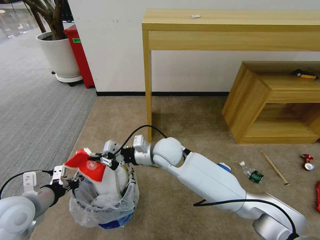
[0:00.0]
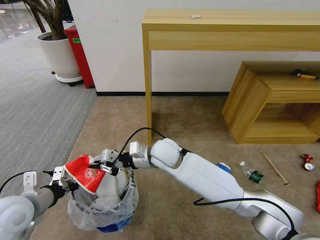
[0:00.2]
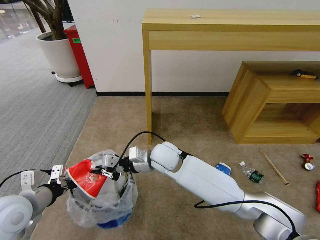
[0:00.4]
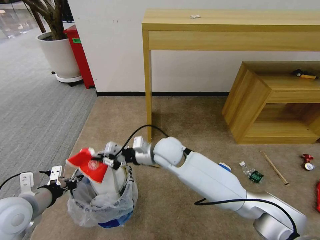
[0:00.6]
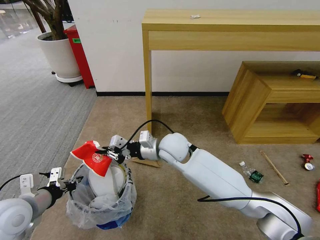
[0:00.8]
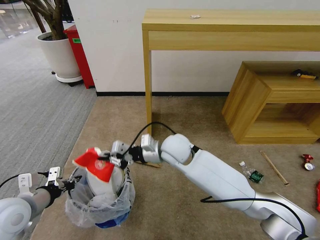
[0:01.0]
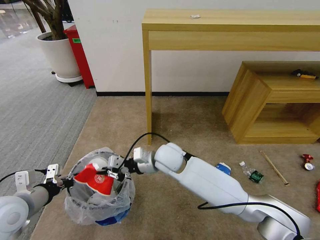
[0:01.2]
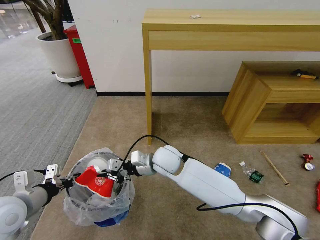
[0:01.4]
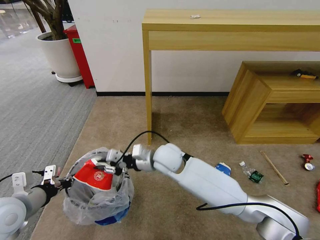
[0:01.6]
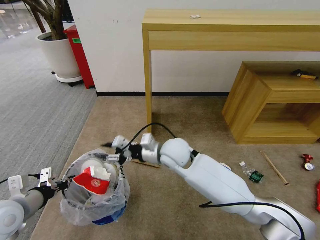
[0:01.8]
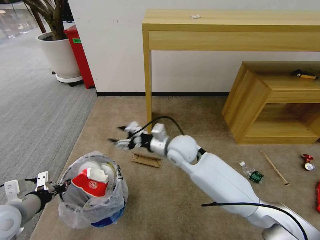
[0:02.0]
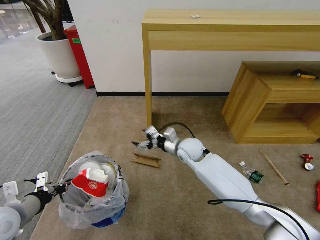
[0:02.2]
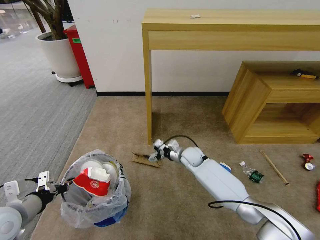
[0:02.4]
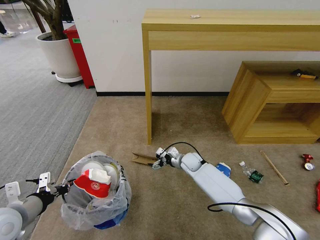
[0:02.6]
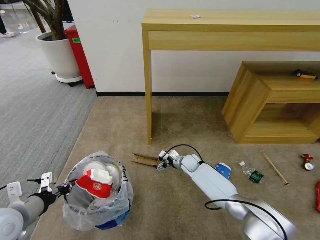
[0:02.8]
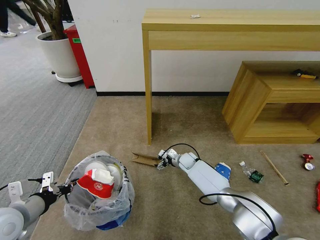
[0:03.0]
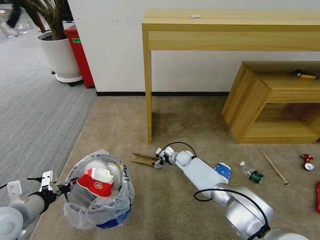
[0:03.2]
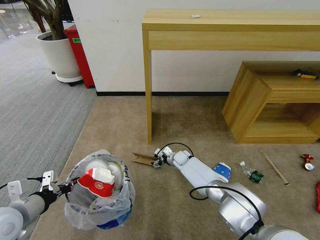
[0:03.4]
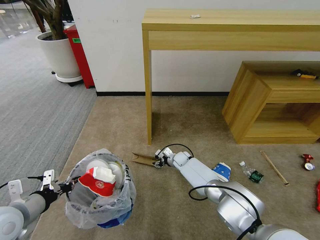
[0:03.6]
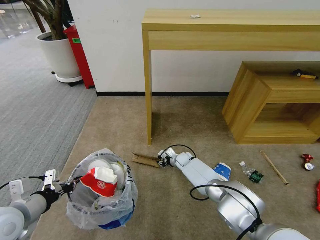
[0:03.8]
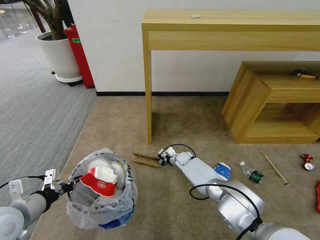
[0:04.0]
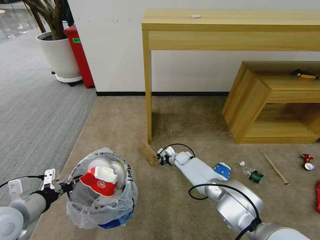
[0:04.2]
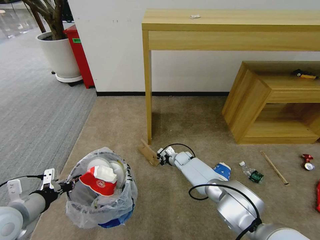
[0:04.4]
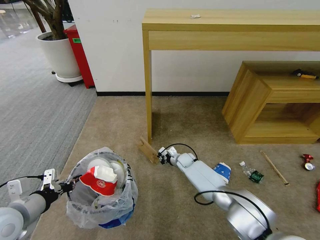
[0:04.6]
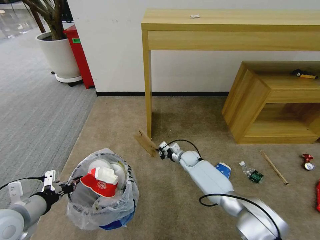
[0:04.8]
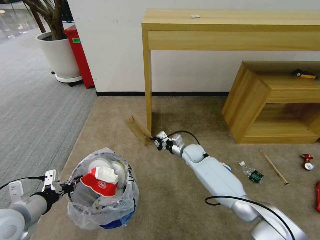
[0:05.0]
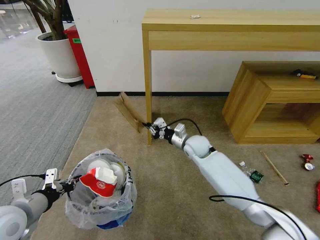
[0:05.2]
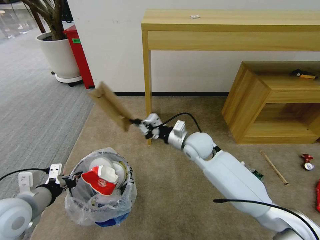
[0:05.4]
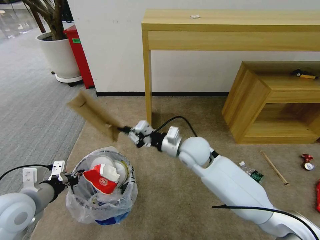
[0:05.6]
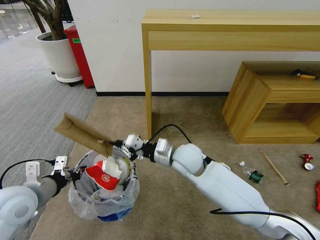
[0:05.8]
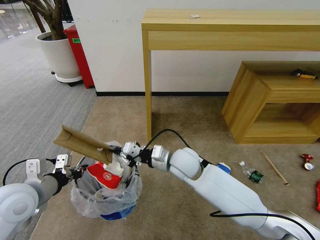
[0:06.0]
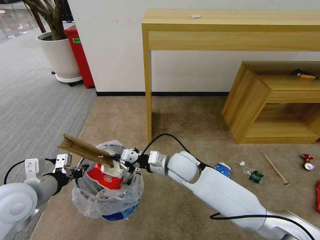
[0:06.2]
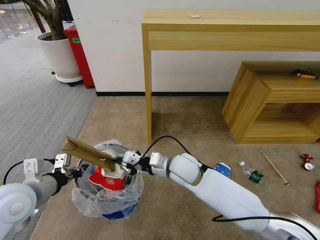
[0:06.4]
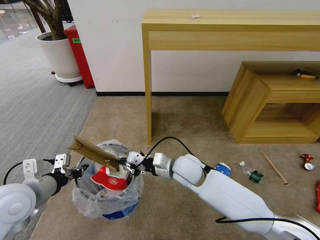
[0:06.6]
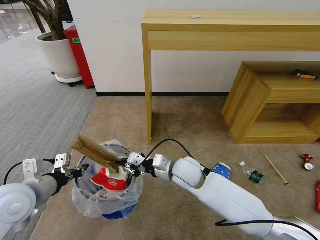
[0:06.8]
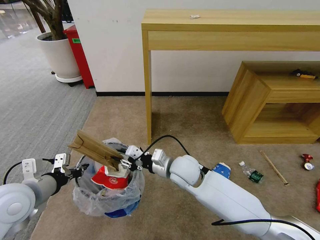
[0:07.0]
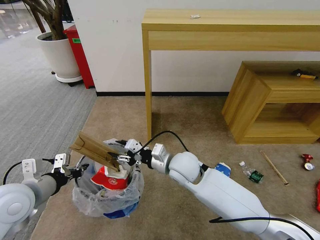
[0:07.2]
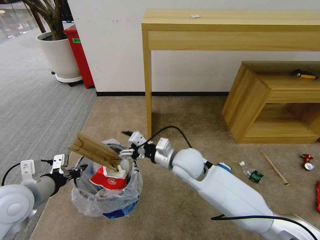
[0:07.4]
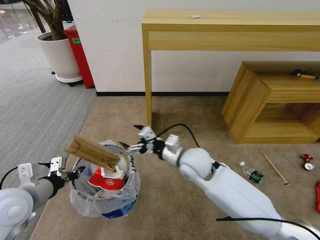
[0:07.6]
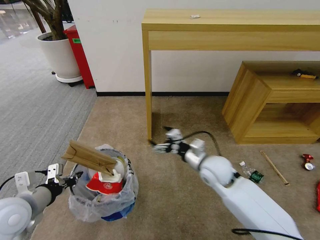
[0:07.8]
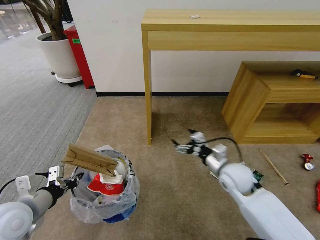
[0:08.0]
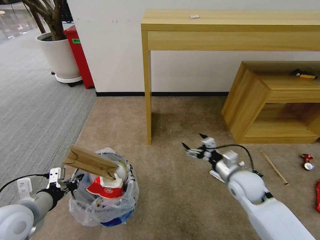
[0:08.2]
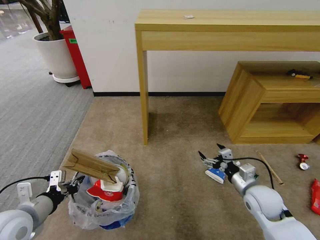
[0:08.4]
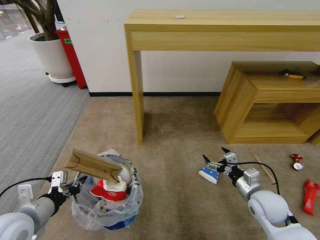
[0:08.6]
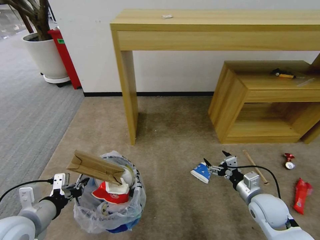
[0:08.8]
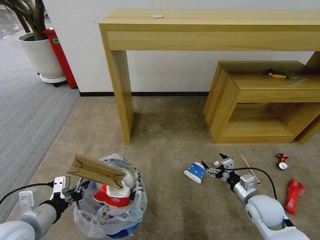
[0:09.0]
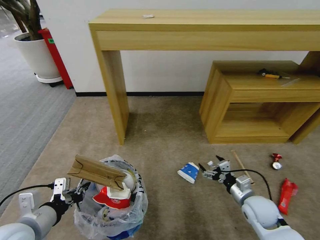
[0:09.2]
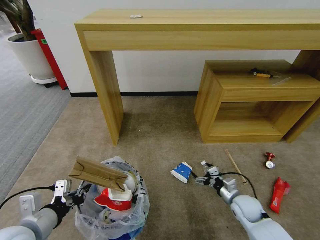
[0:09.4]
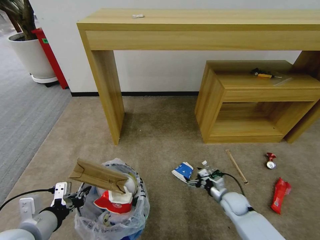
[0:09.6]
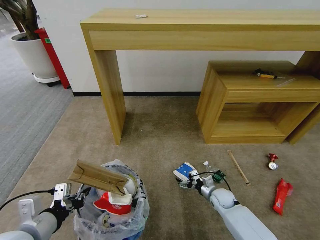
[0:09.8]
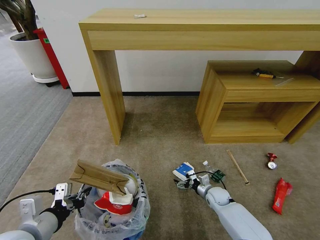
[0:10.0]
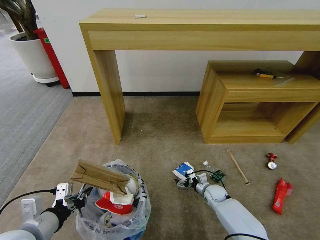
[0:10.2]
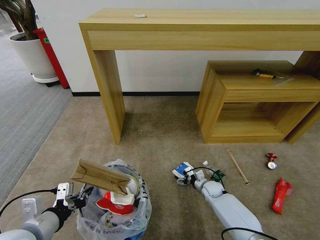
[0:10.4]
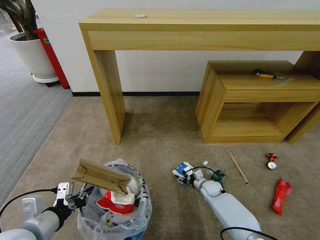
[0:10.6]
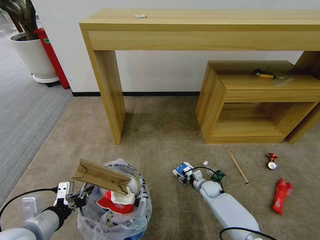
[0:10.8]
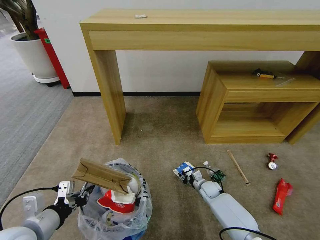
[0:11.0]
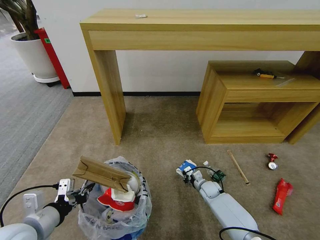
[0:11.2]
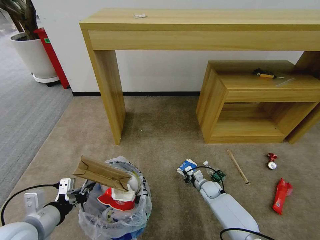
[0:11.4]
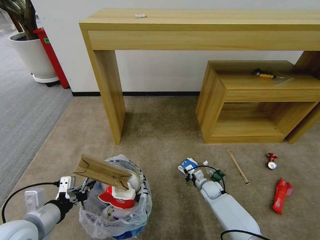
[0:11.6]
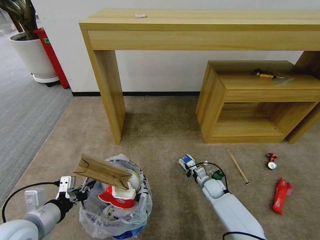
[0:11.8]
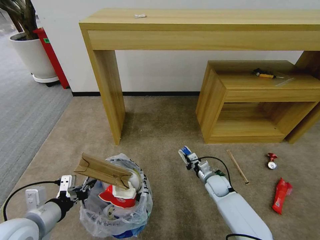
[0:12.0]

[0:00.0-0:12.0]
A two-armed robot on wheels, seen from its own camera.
Task of the whole recording: Pick up the trash bin and place the garbage on the floor into it.
0:00.0 to 0:01.6: There are only small adjustments of the grippers.
0:01.6 to 0:03.0: The right gripper travels downward, forward and to the right by roughly 30 cm, and opens up.
0:03.0 to 0:04.4: The right gripper closes its fingers.
0:04.4 to 0:06.0: The right gripper shifts about 30 cm upward and backward, while the left gripper ends up roughly 5 cm from where it was.
0:06.0 to 0:07.6: The right gripper opens its fingers.
0:07.6 to 0:09.0: The right gripper moves to the right, downward and backward, about 30 cm. The left gripper goes some 5 cm backward.
0:09.0 to 0:10.4: The right gripper shifts about 25 cm downward, forward and to the left.
0:10.4 to 0:12.0: The right gripper moves upward, some 10 cm, and closes.

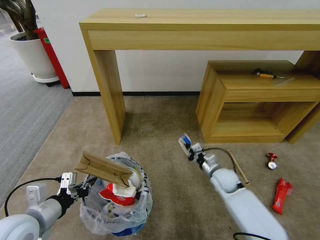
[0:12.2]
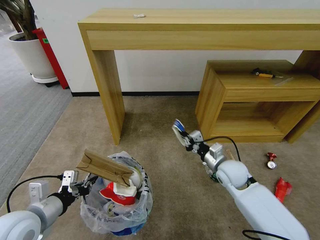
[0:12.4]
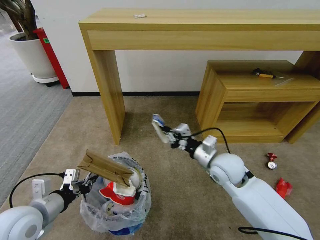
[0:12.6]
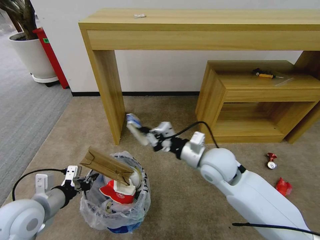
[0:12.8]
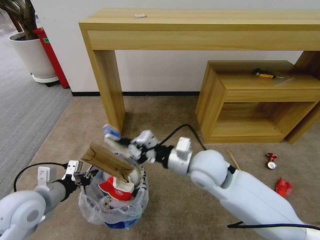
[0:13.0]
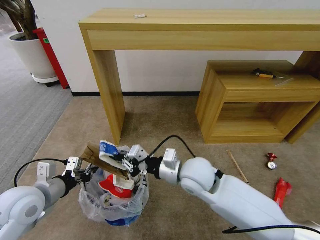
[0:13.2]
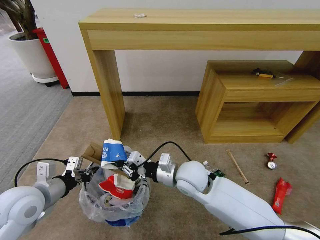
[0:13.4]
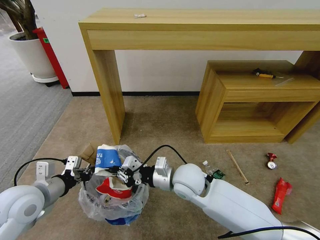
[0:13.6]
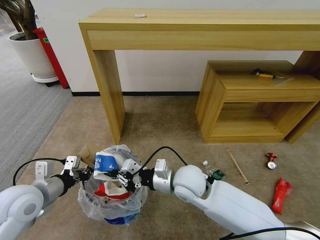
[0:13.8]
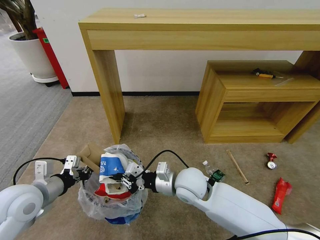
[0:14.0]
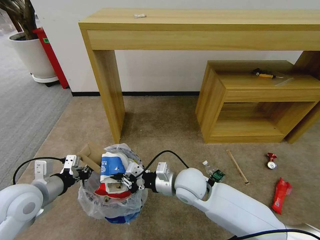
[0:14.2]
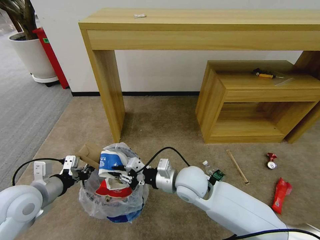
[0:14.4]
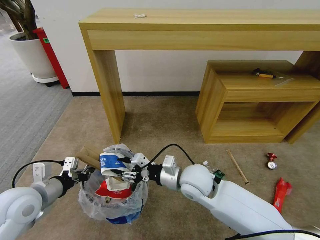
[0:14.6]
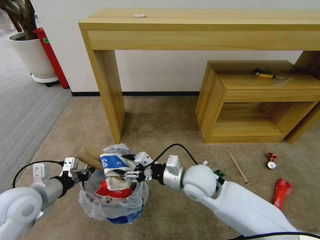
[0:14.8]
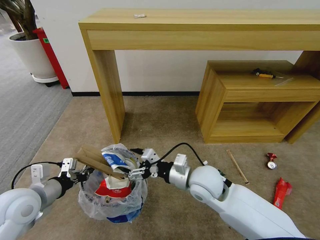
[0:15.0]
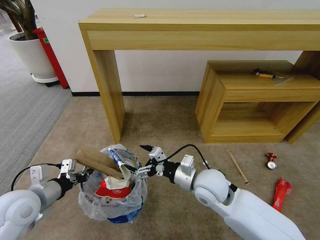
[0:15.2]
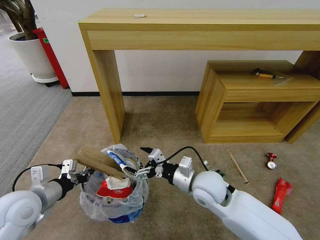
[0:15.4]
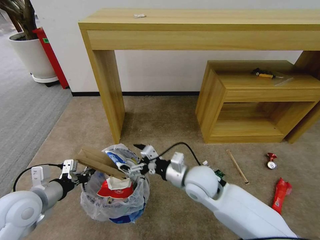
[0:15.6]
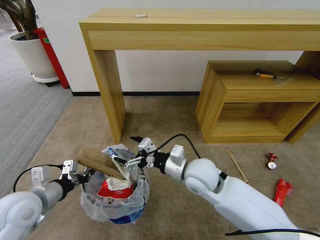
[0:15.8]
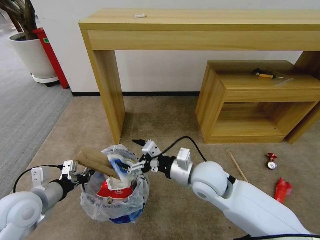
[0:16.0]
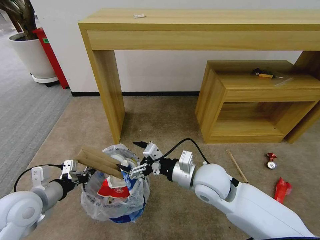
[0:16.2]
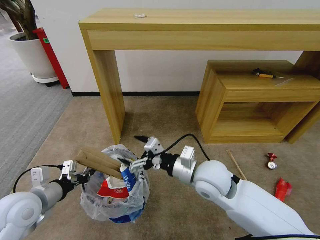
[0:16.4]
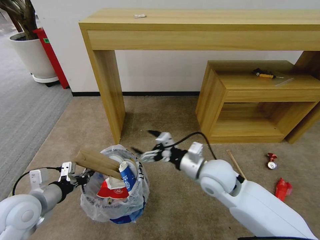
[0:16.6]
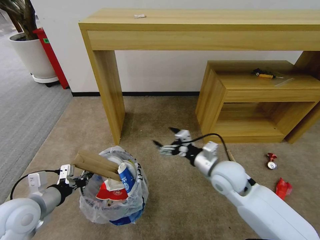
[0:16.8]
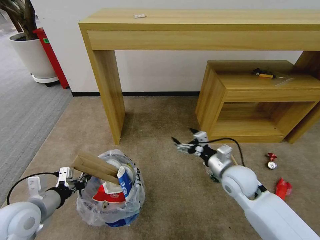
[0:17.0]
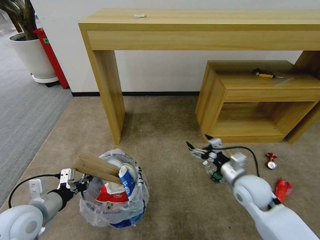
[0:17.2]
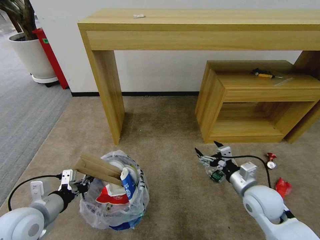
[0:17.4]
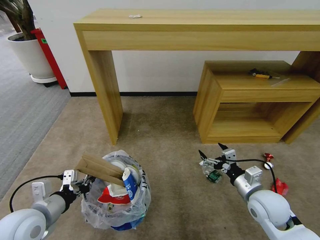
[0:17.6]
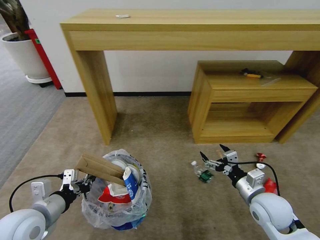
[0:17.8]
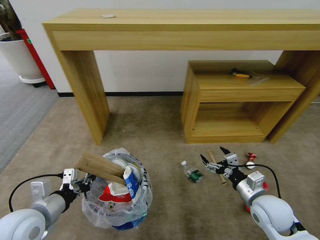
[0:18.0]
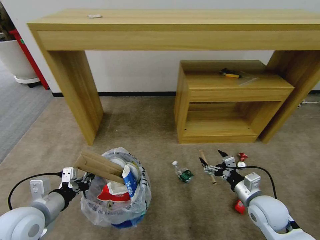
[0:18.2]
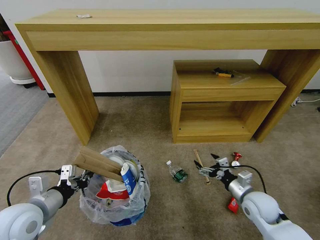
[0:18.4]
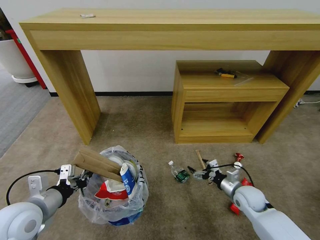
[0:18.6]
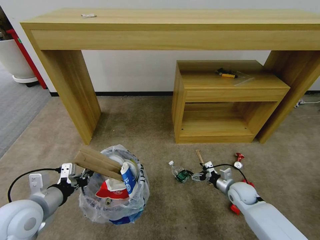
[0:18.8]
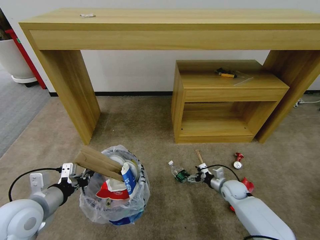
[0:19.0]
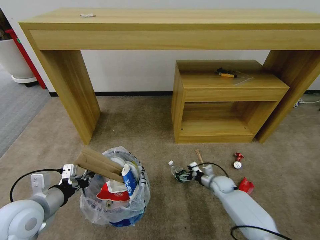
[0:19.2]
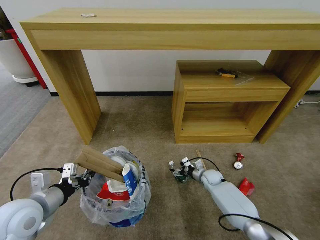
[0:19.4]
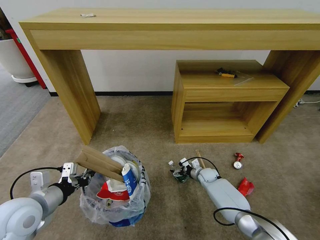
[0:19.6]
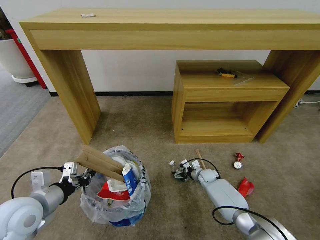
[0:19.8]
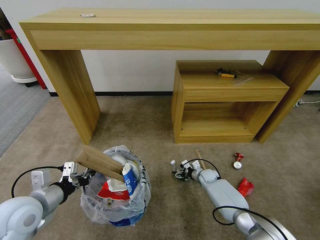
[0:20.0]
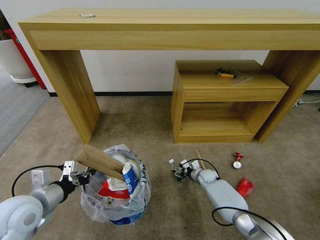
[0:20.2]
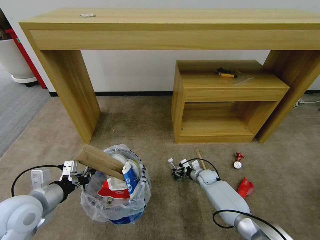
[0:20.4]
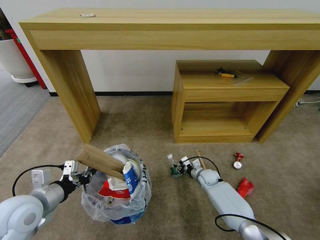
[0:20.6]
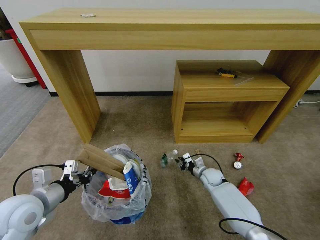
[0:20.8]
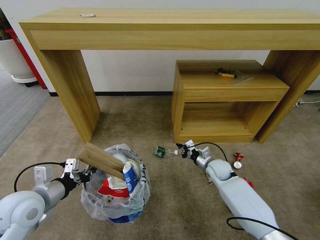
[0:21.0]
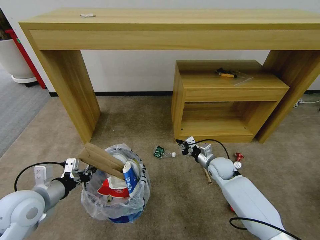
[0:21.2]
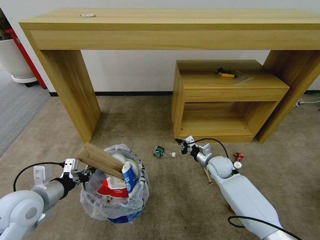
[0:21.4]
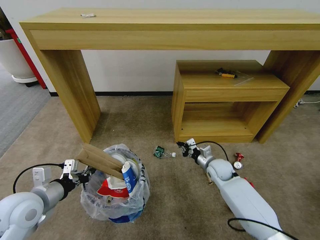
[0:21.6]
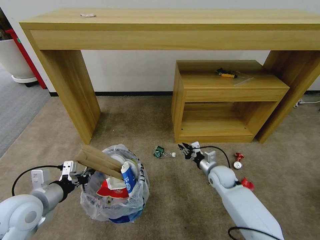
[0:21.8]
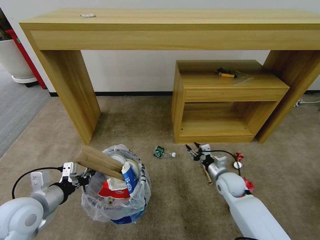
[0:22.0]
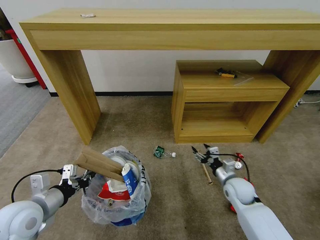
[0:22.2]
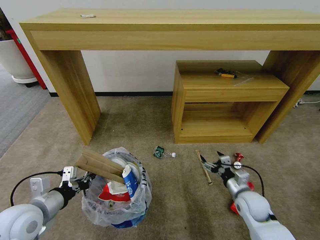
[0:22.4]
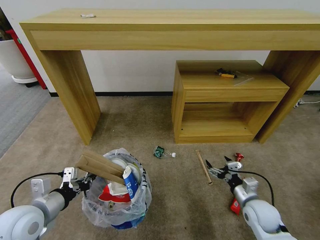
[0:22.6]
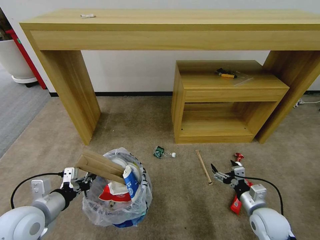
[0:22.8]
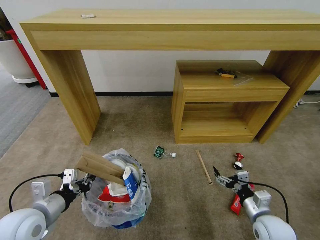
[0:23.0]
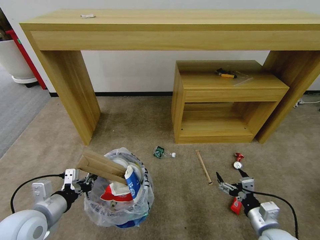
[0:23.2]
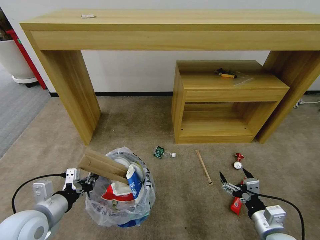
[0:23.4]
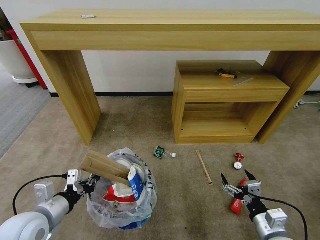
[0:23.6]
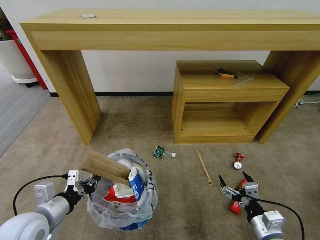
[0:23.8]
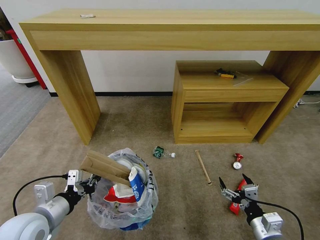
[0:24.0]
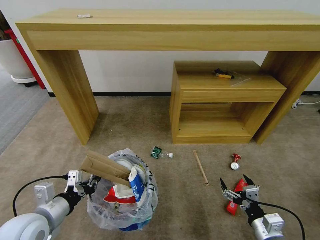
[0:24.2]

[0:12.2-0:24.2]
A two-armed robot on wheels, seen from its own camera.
Task of the whole recording: Pick up the trash bin and place the garbage on the floor into it.
0:12.2 to 0:13.8: The left gripper shifts roughly 5 cm forward; the right gripper goes roughly 25 cm to the left, upward and backward.
0:13.8 to 0:15.2: The right gripper is displaced to the right by roughly 5 cm, and opens its fingers.
0:15.2 to 0:16.6: The grippers stay close to where they were, moving slightly.
0:16.6 to 0:18.2: The right gripper shifts some 20 cm to the right and downward.
0:18.2 to 0:19.8: The right gripper shifts some 30 cm forward and downward.
0:19.8 to 0:21.2: The right gripper moves upward, about 15 cm, and closes its fingers.
0:21.2 to 0:22.6: The right gripper shifts approximately 20 cm backward and to the right, and opens up.
0:22.6 to 0:24.2: The right gripper travels backward by roughly 10 cm.
